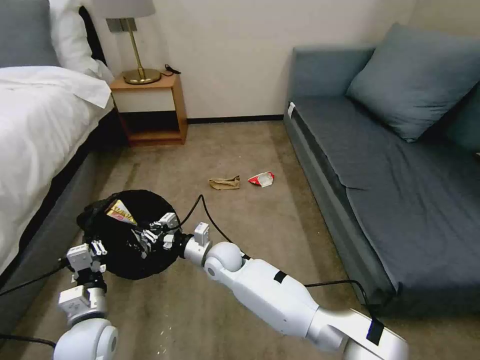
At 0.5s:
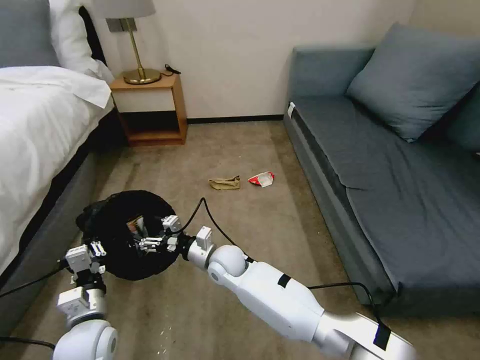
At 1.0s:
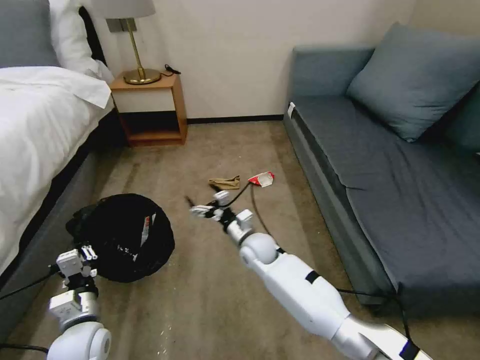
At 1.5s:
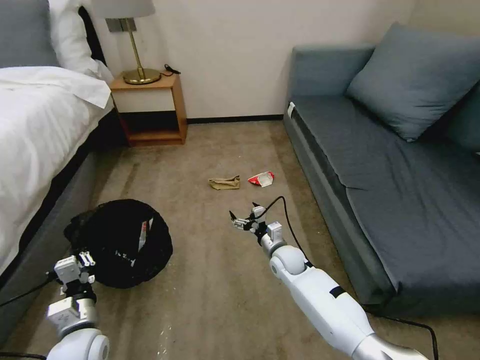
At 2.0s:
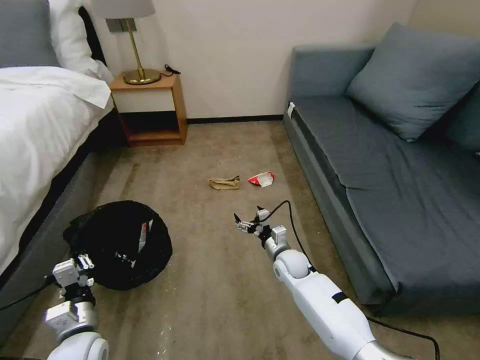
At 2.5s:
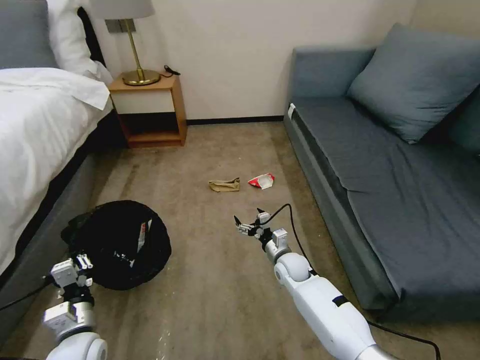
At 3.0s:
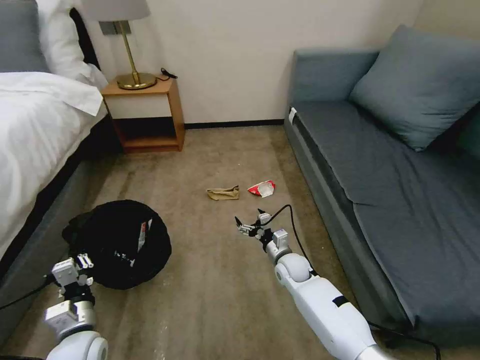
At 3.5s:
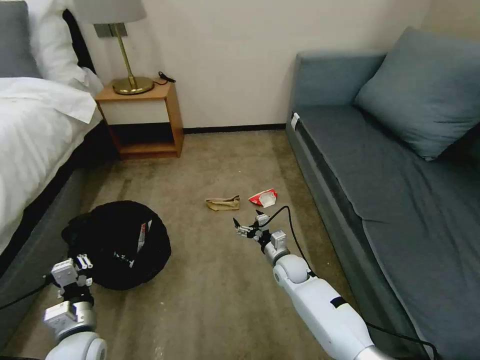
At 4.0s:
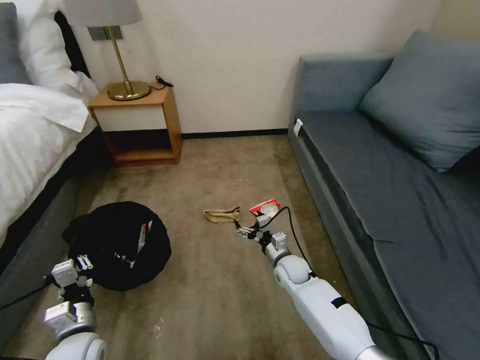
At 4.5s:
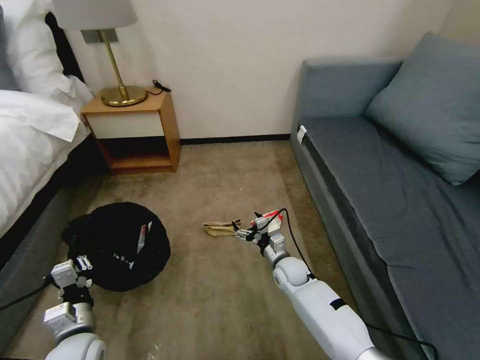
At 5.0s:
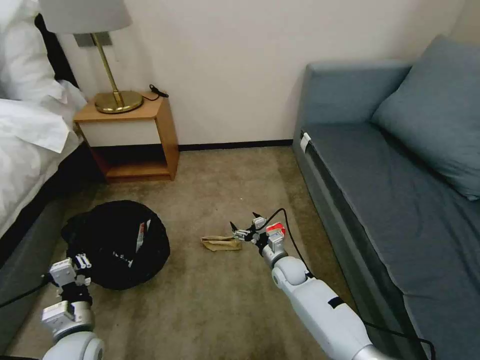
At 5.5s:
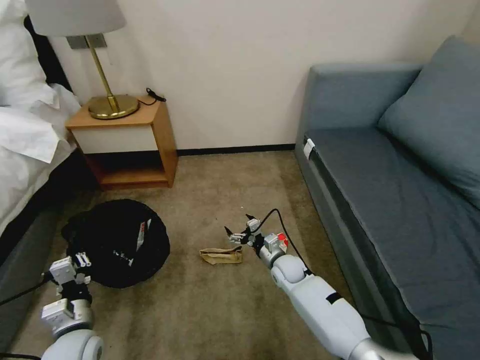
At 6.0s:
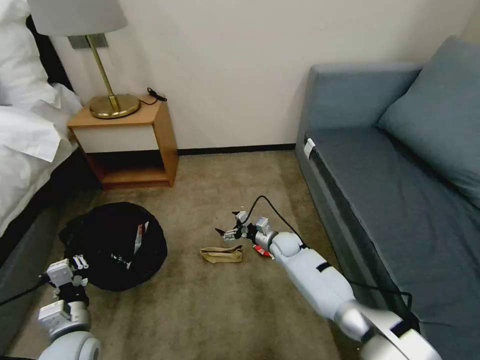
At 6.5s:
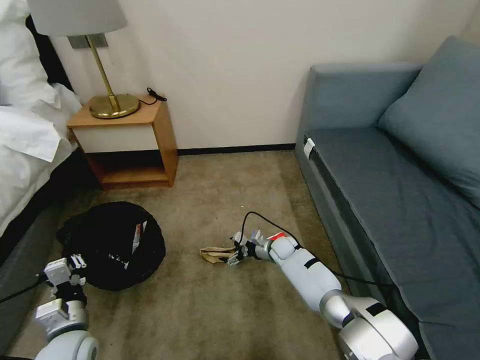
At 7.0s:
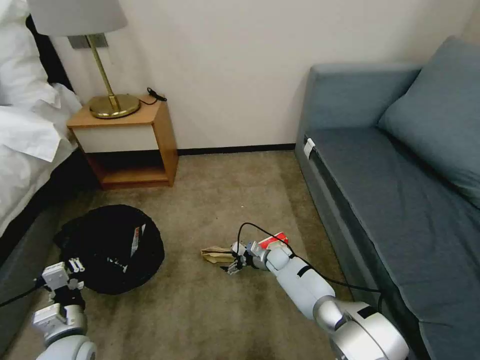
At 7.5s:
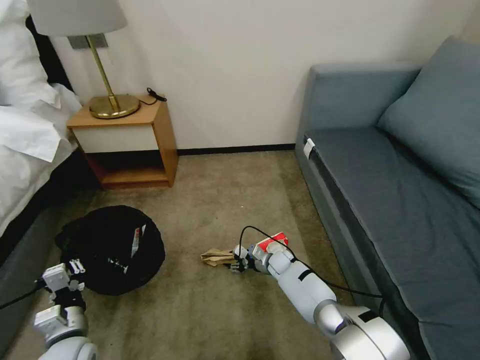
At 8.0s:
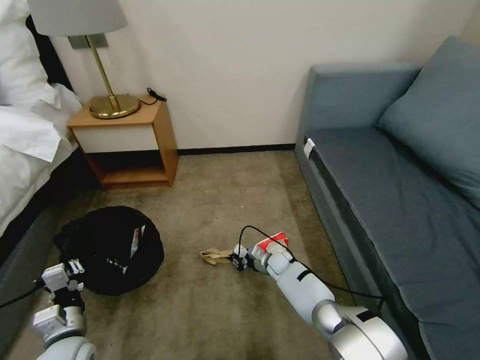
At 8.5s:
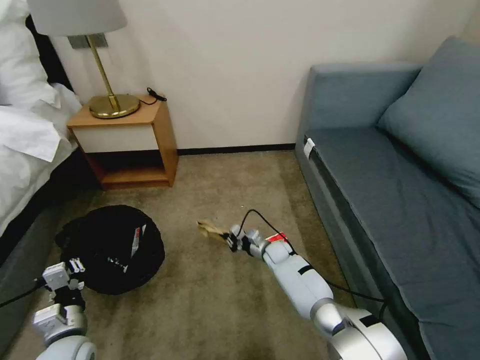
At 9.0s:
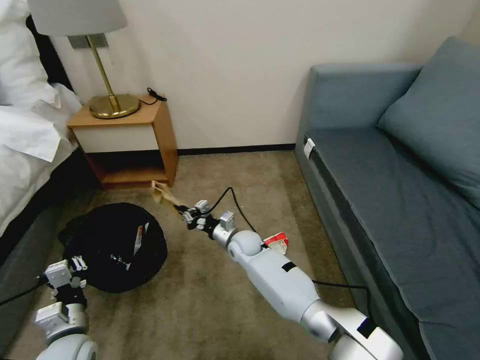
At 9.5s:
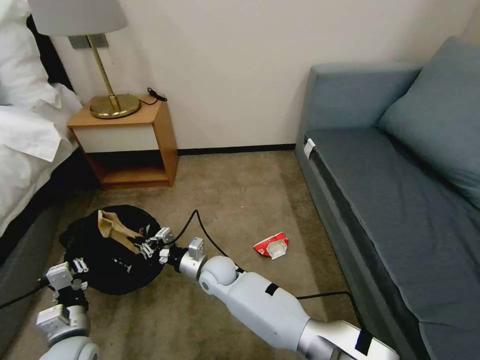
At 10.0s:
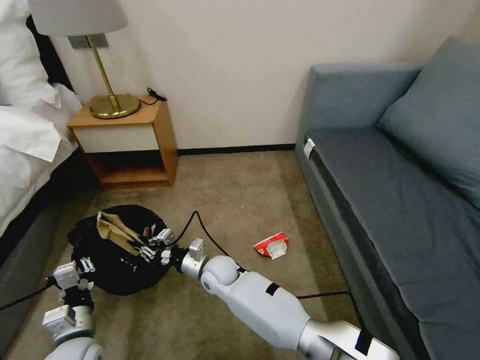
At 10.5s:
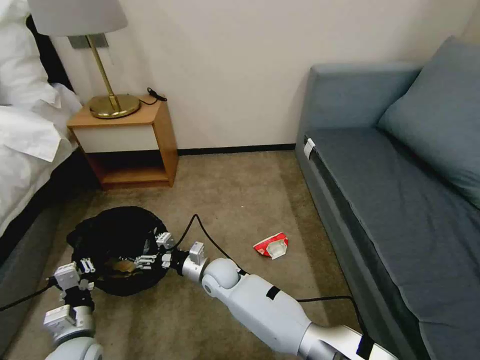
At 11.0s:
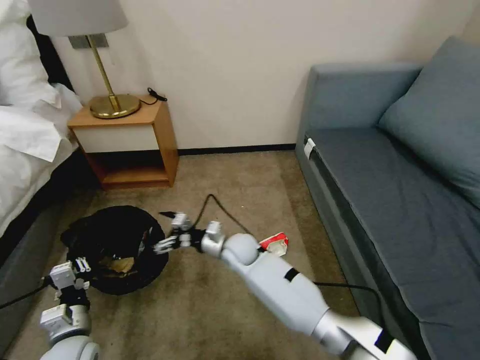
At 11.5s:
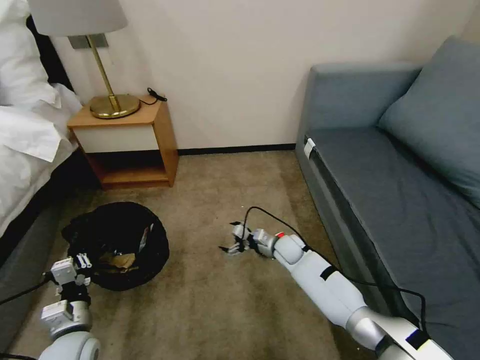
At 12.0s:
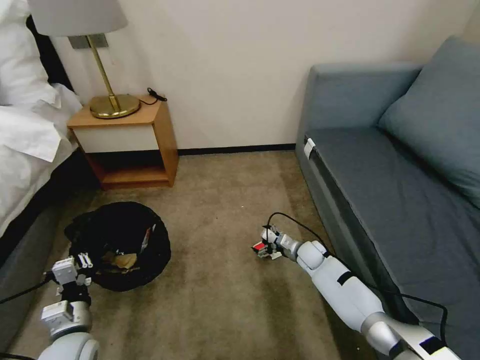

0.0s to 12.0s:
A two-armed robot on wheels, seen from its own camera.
Task of the whole recording: Pick up the trash bin, then pick up the garbage on the floor and place it into the trash bin.
0.0s to 2.0s: The right gripper moves to the right, about 20 cm, and opens its fingers.
4.0s to 6.0s: The right gripper goes roughly 10 cm forward.
6.0s to 8.0s: The right gripper goes some 10 cm downward, and closes its fingers.
8.0s to 10.0s: The right gripper travels to the left, upward and backward by roughly 25 cm.
10.0s to 12.0s: The right gripper is displaced to the right by roughly 30 cm, and opens.

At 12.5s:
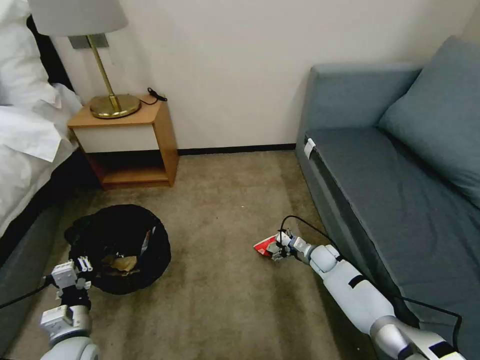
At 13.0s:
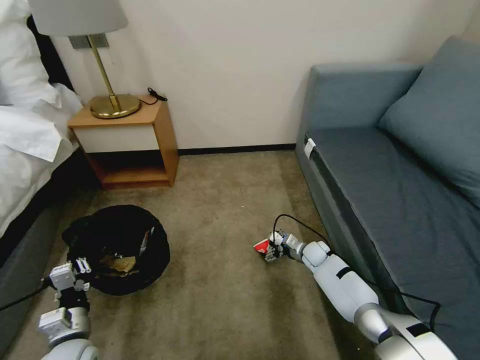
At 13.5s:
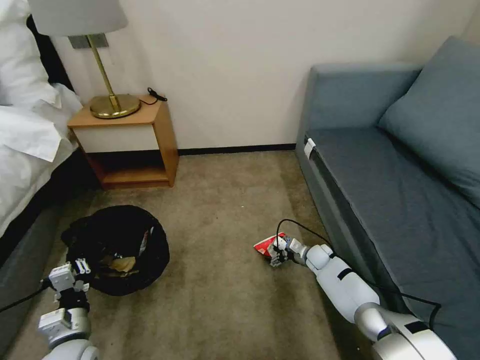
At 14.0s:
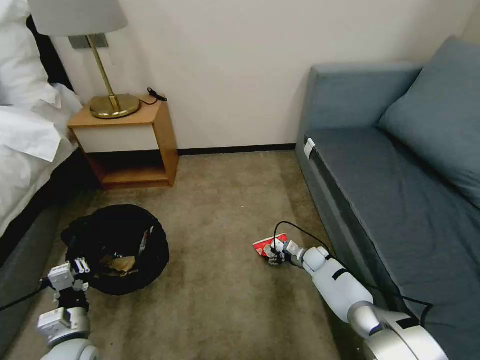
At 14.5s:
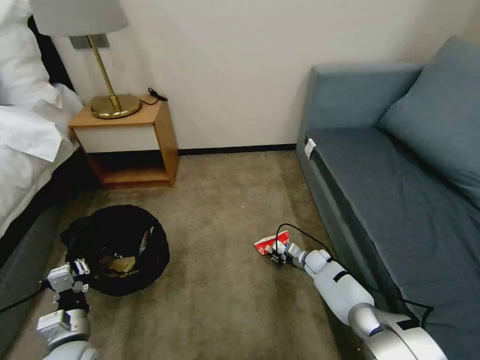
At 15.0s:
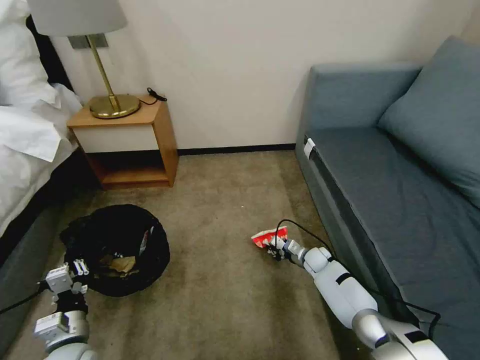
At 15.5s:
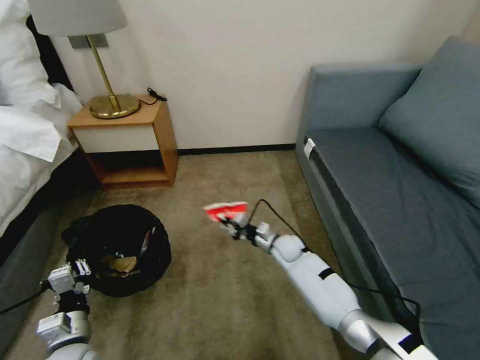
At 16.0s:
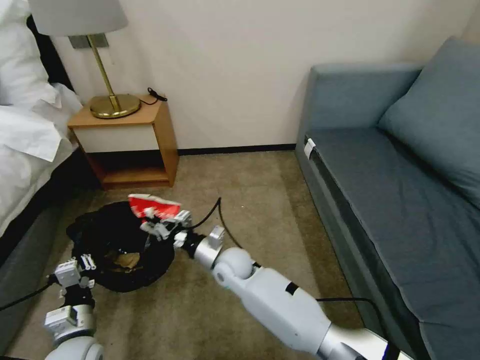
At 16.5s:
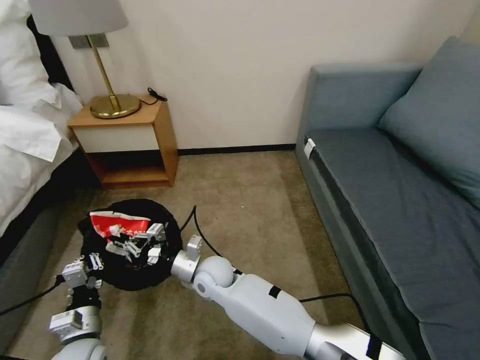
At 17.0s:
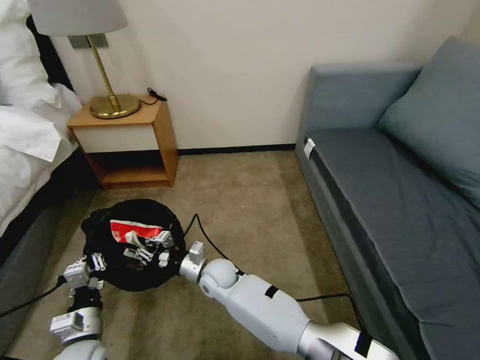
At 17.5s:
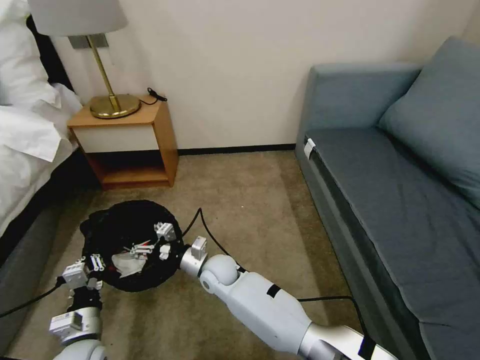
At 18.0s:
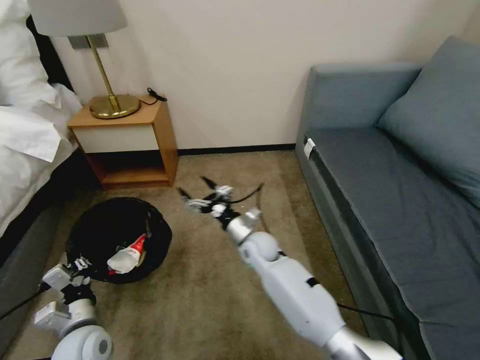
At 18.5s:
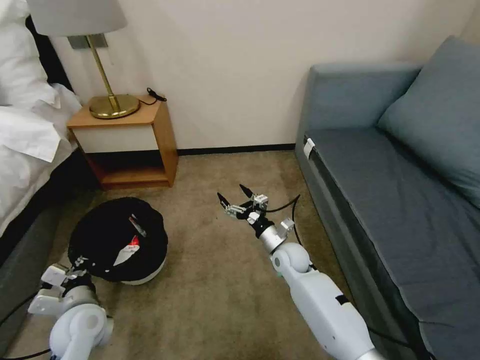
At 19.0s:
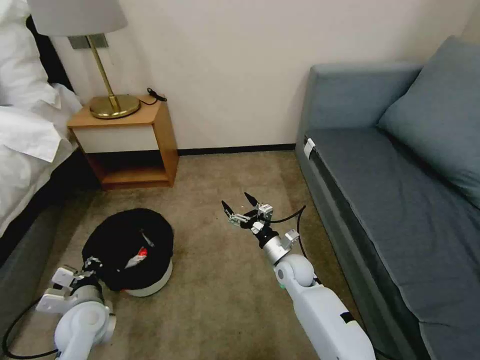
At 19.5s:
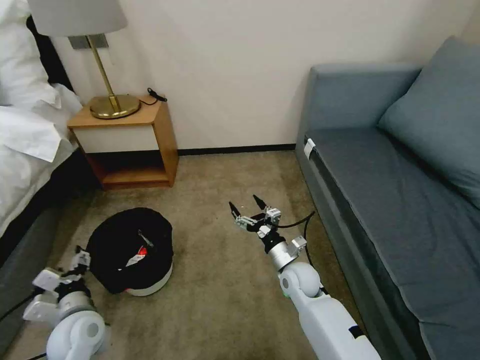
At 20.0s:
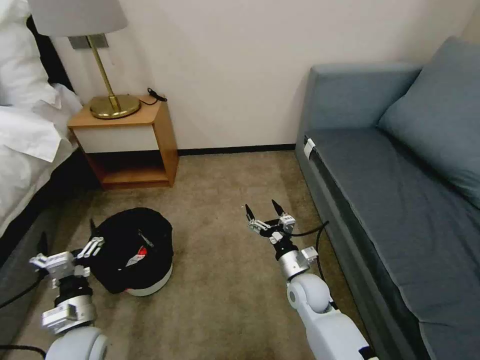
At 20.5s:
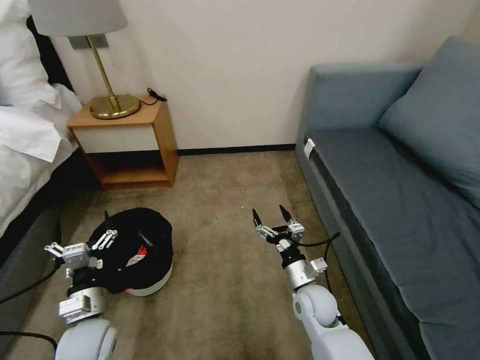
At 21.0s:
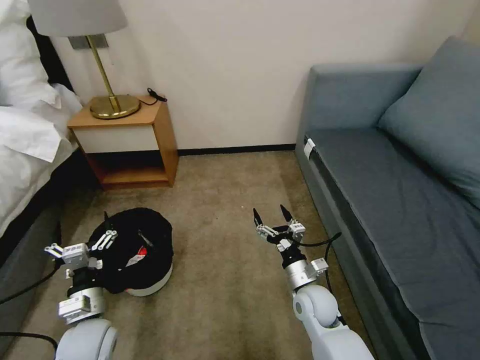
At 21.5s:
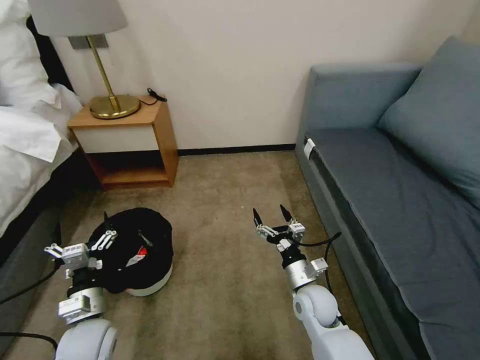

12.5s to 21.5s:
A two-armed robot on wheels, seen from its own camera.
Task of the whole recording: Pick up the trash bin, then pick up the garbage on the floor and place it into the trash bin.
12.5s to 14.5s: The right gripper closes up.
14.5s to 17.0s: The right gripper travels to the left by roughly 35 cm.
17.0s to 19.5s: The left gripper ends up about 5 cm from where it was, and opens up, while the right gripper travels to the right by about 20 cm, and opens its fingers.
19.5s to 21.5s: The right gripper heads backward, covering about 5 cm.

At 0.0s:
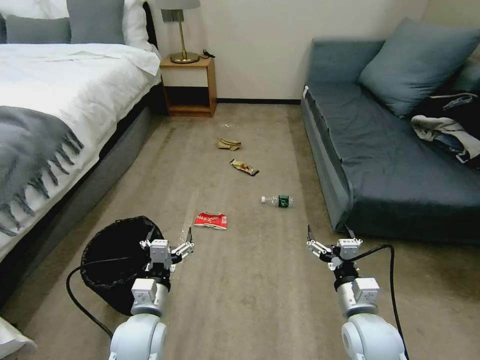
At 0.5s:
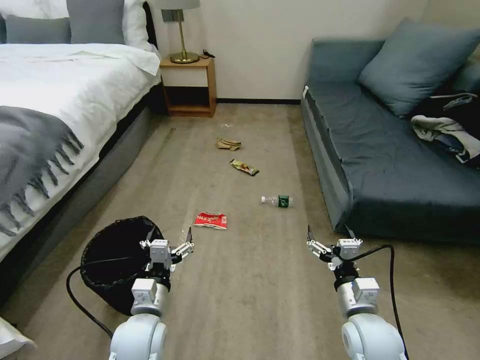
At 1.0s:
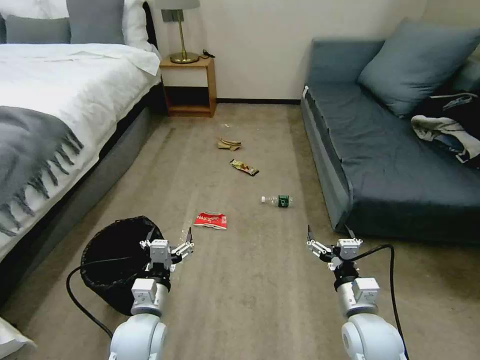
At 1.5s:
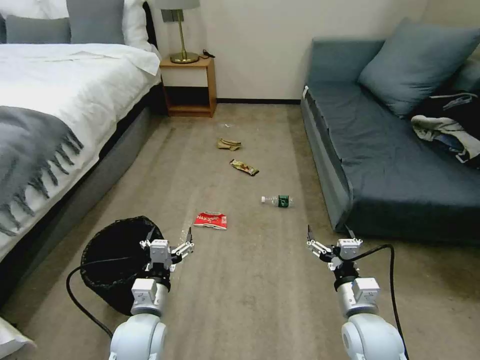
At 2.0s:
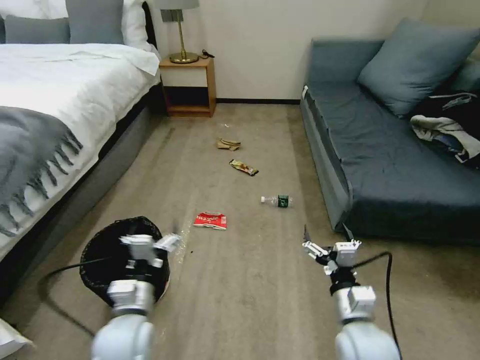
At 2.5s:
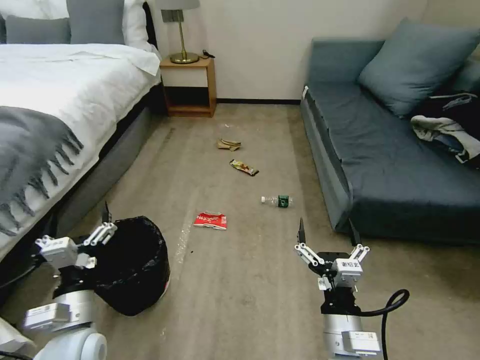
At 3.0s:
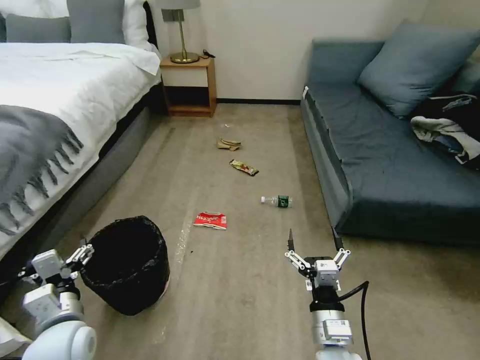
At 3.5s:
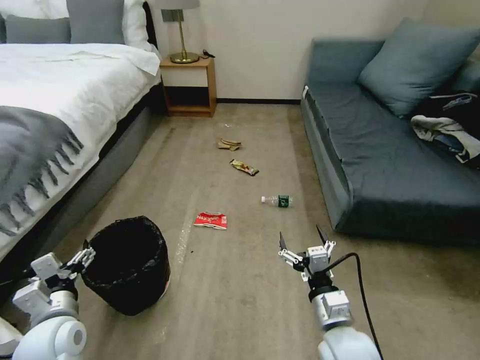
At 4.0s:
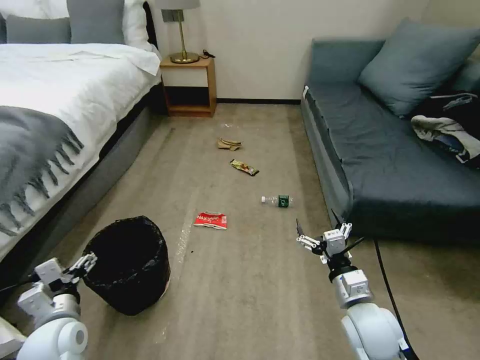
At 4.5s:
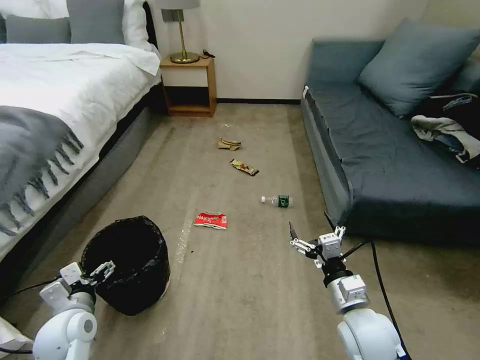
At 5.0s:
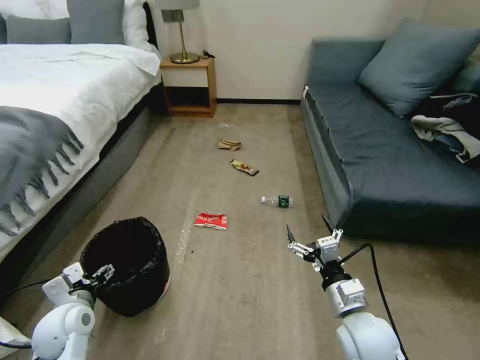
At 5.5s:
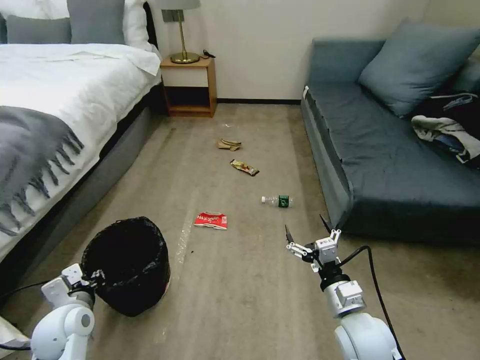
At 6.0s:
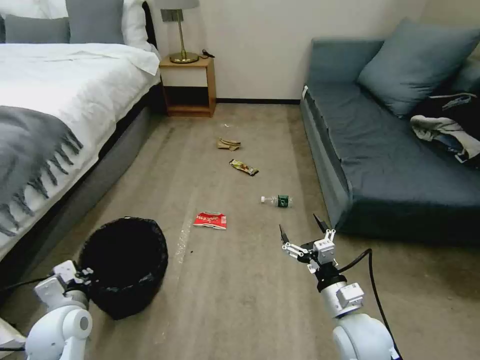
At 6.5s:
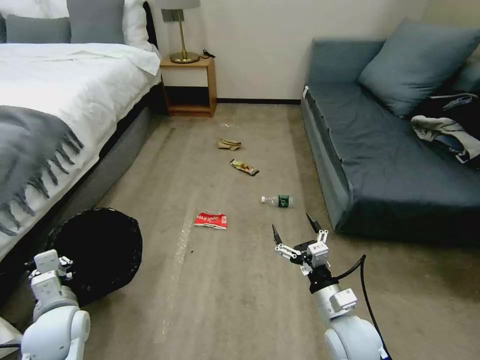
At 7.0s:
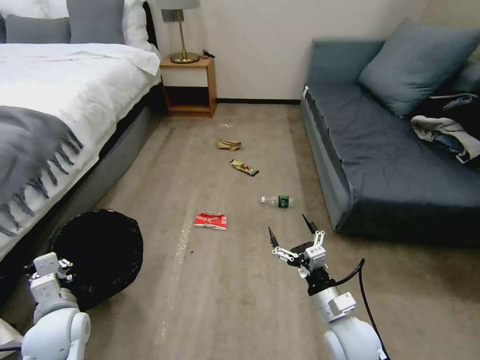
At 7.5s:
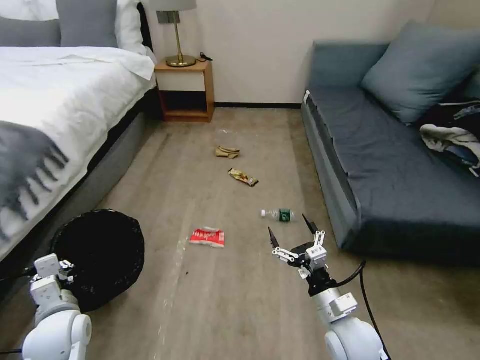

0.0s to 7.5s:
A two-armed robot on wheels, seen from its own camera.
Task of the whole recording: Pick up the trash bin, then pick up the garbage on the floor and place it into the trash bin.
2.0s to 4.0s: The left gripper is displaced to the left by approximately 15 cm.
4.0s to 5.5s: The left gripper closes up.
5.5s to 7.5s: The left gripper closes up.
